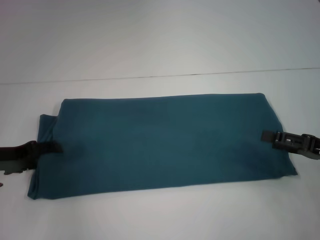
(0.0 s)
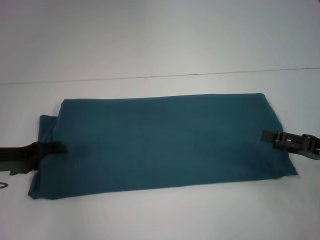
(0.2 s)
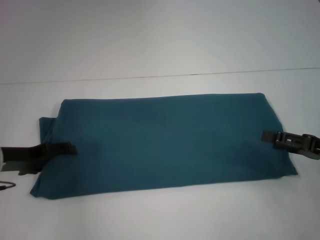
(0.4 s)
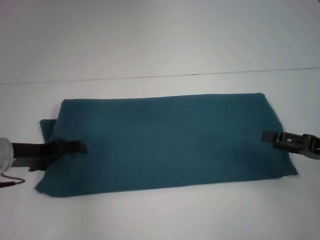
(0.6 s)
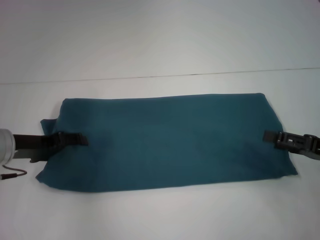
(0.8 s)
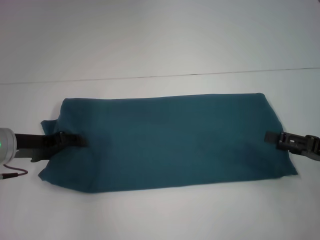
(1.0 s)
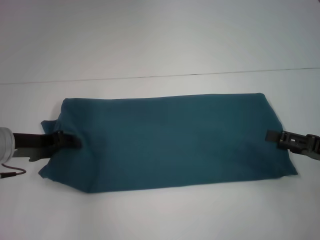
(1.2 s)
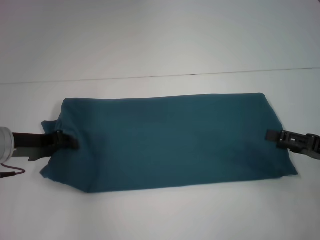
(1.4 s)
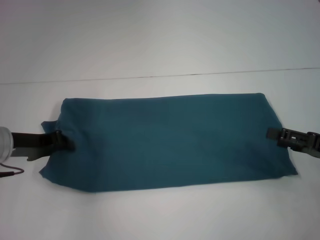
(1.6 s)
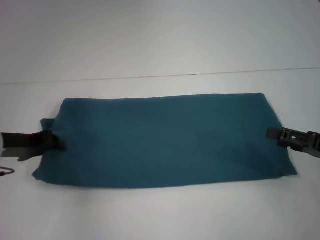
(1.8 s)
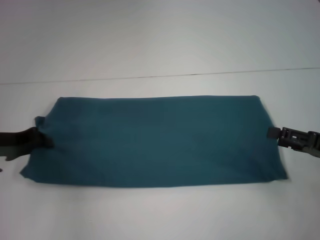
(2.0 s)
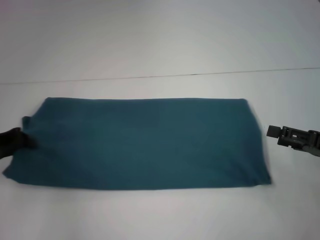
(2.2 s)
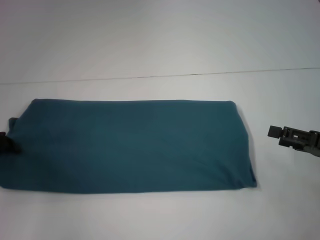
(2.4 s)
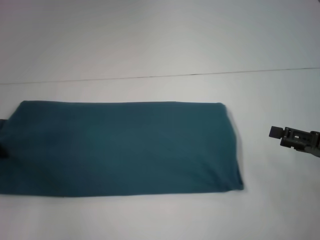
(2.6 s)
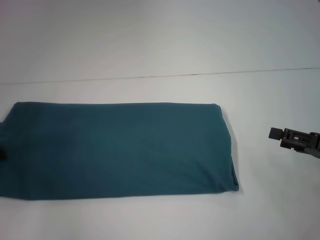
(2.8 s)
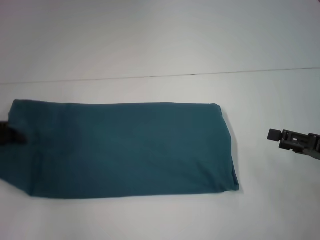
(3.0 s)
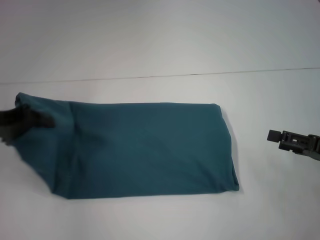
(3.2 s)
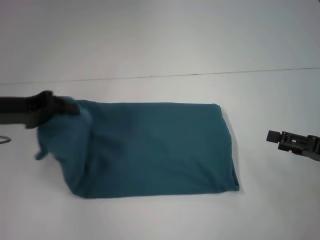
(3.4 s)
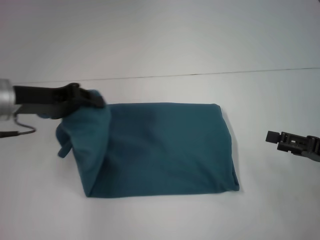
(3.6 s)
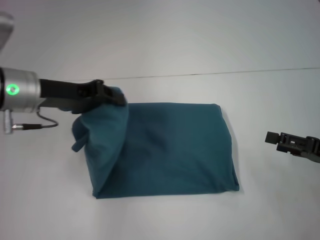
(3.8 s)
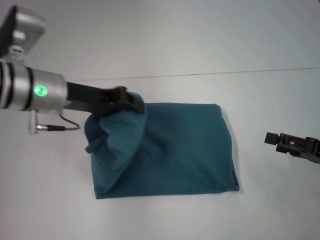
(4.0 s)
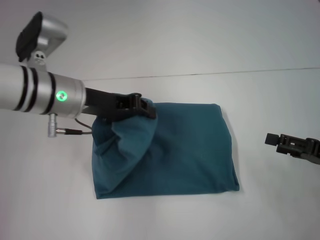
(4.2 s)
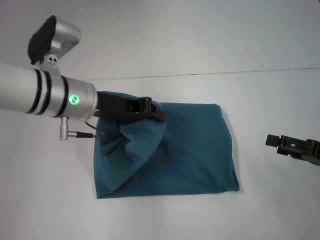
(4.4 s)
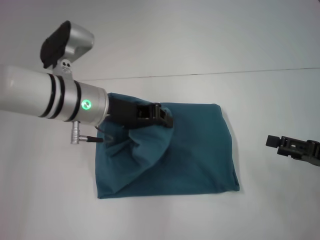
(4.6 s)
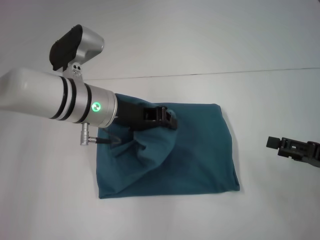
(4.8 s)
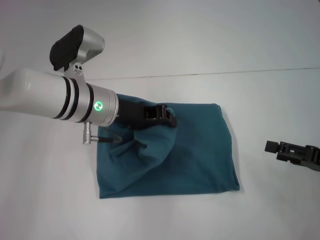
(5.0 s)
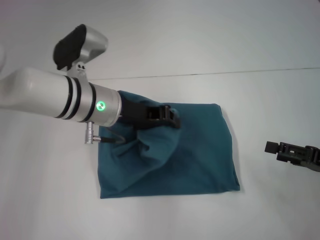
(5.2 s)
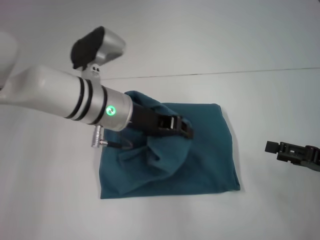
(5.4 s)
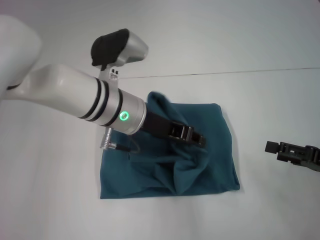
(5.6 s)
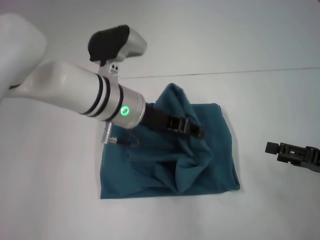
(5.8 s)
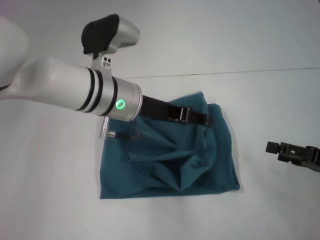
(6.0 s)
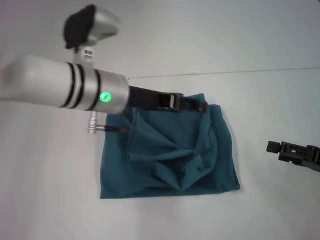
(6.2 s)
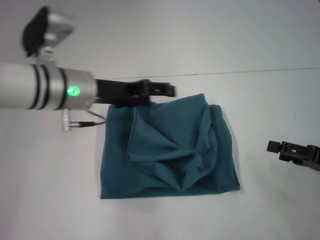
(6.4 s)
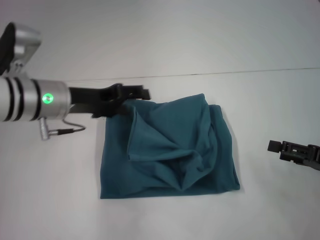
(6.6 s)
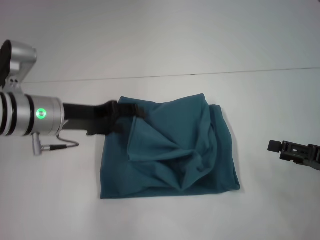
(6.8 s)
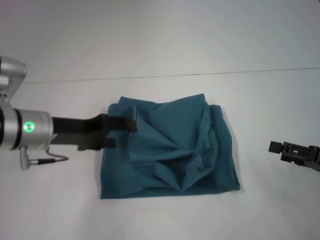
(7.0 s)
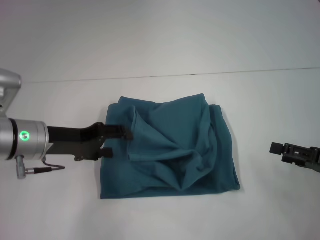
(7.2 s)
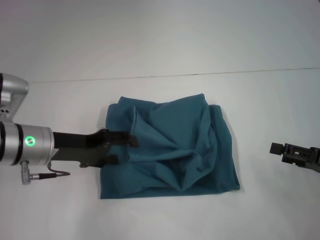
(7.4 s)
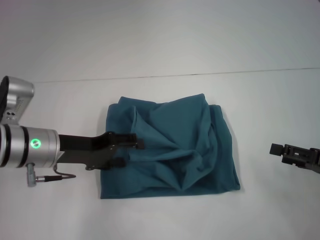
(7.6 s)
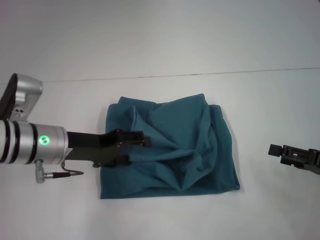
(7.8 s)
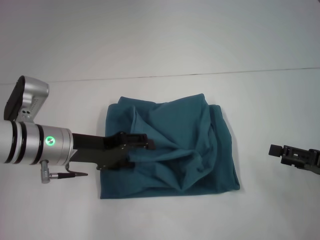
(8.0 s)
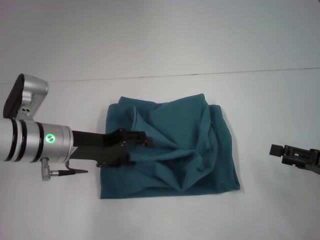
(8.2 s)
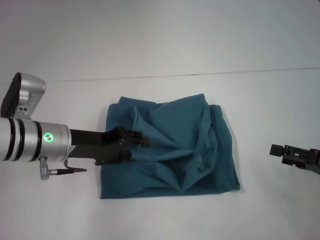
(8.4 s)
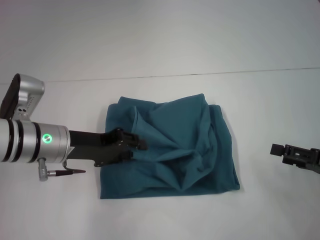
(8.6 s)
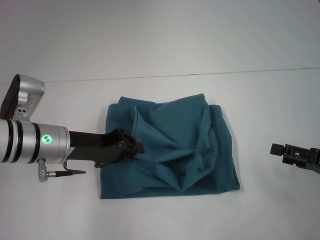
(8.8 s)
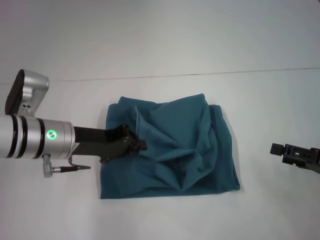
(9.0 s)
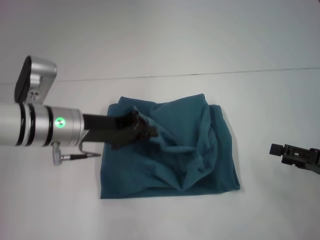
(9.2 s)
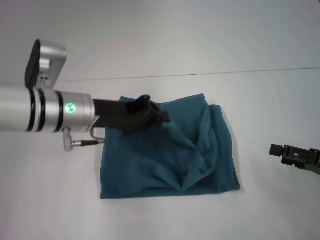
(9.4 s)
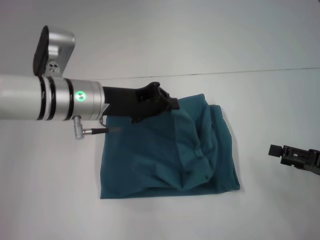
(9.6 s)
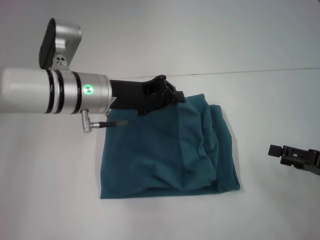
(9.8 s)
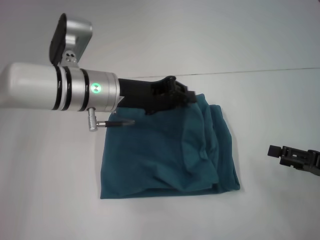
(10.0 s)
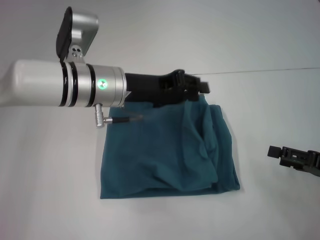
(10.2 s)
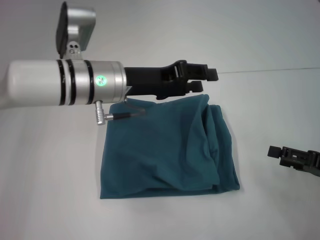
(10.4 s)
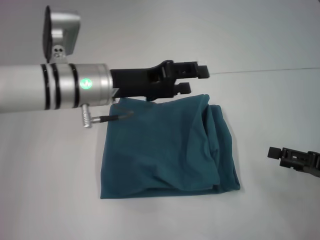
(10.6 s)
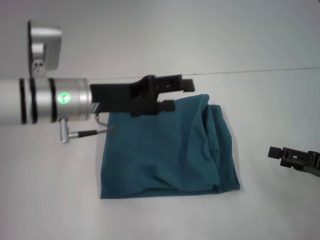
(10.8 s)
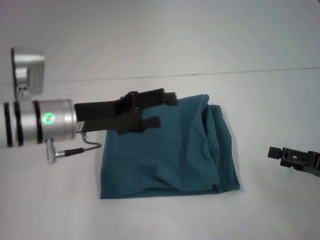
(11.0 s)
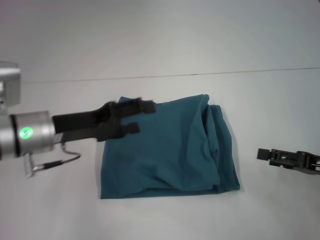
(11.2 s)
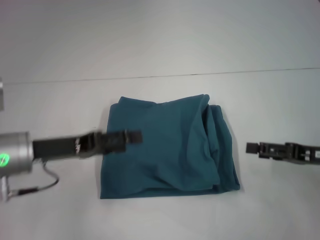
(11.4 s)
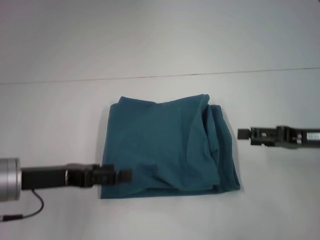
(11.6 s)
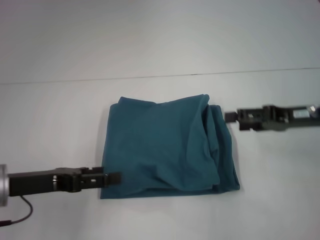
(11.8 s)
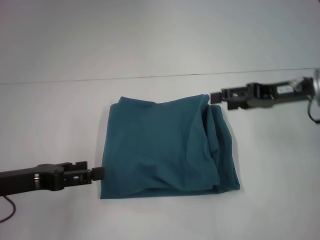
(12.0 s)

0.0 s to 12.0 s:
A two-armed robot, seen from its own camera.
Step, 0.0 to 6.2 s: Fold the clothes to the left.
0.0 to 1.6 s: The left gripper closes.
1.6 to 3.0 s: The left gripper travels to the left by some 5 cm.
3.0 to 4.4 s: The left gripper is displaced to the right by some 20 cm.
4.4 to 6.0 s: The left gripper heads to the right, covering roughly 5 cm, and opens.
6.0 to 7.6 s: The left gripper heads to the left and downward, covering approximately 15 cm, and opens.
7.6 to 9.0 s: The left gripper closes up.
9.0 to 10.4 s: The left gripper moves to the right and upward, roughly 10 cm.
10.4 to 12.0 s: The left gripper heads to the left and backward, covering roughly 20 cm, and opens. The right gripper goes approximately 20 cm forward, upward and to the left.

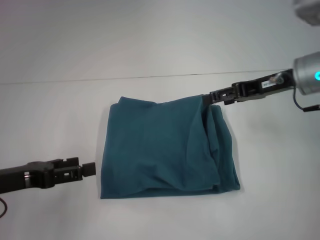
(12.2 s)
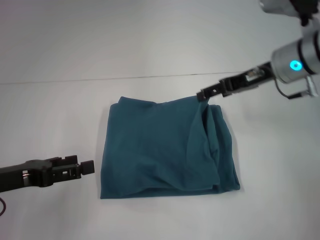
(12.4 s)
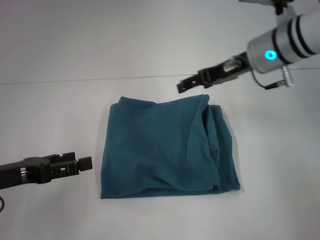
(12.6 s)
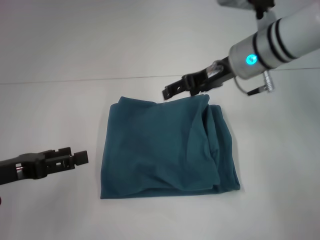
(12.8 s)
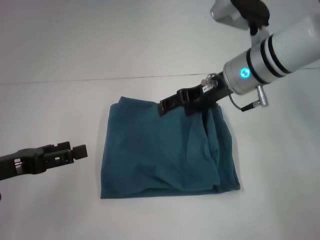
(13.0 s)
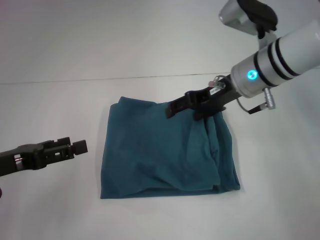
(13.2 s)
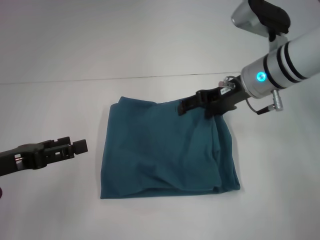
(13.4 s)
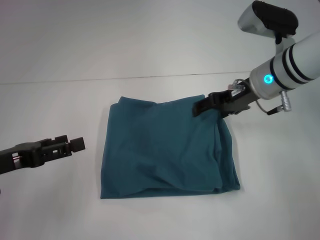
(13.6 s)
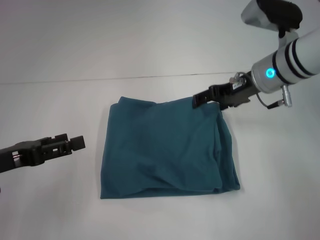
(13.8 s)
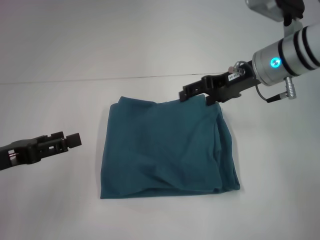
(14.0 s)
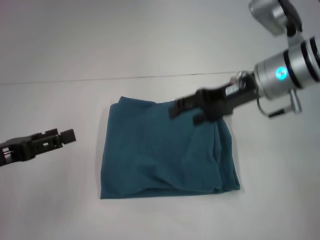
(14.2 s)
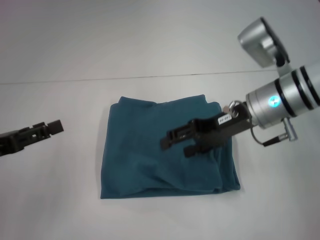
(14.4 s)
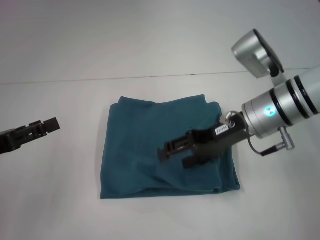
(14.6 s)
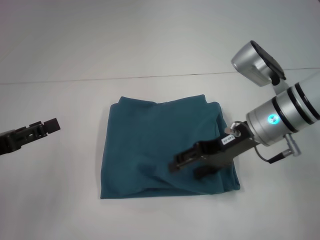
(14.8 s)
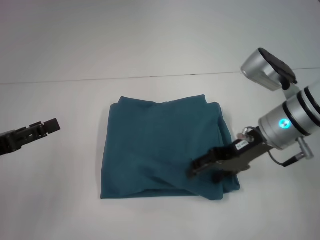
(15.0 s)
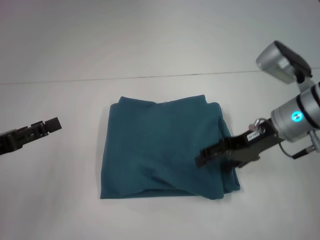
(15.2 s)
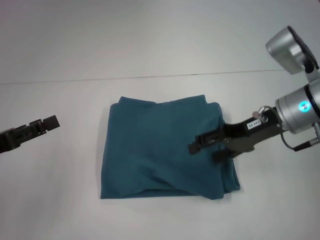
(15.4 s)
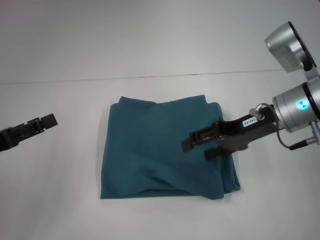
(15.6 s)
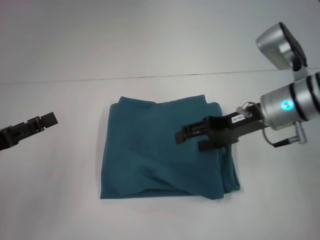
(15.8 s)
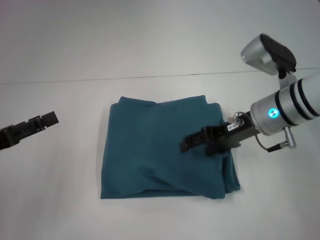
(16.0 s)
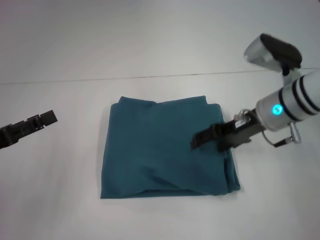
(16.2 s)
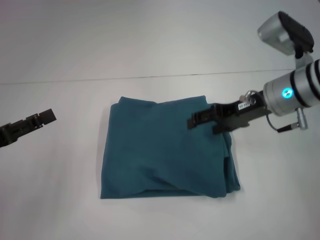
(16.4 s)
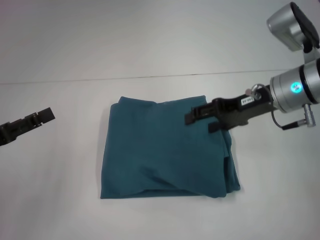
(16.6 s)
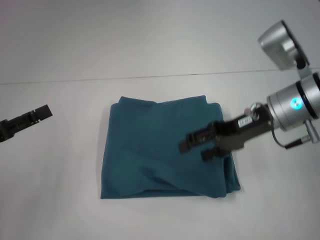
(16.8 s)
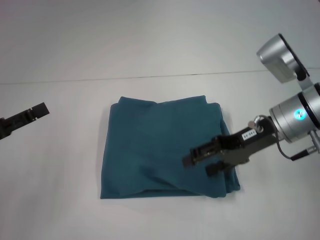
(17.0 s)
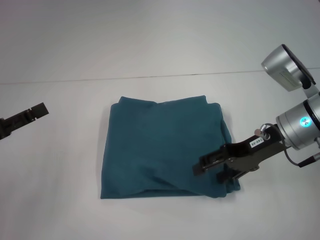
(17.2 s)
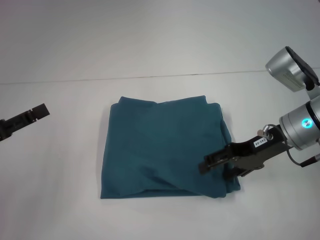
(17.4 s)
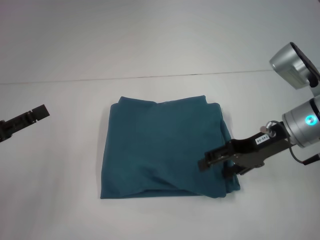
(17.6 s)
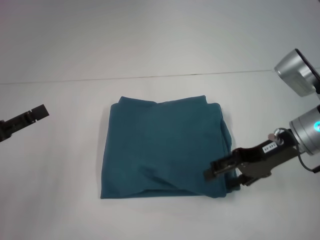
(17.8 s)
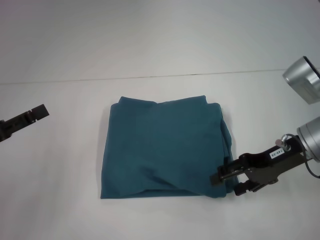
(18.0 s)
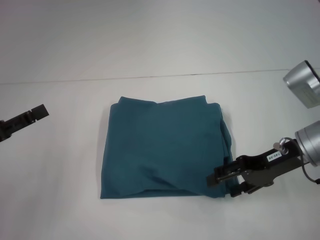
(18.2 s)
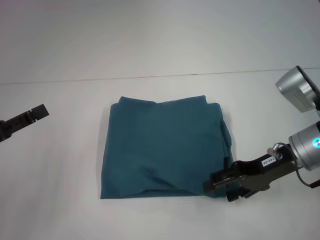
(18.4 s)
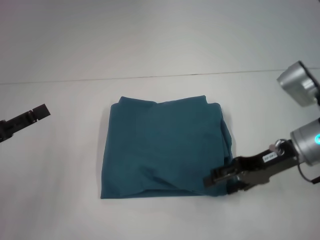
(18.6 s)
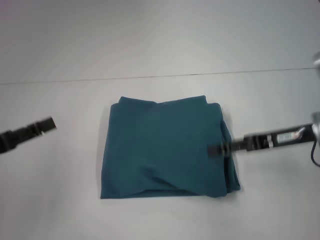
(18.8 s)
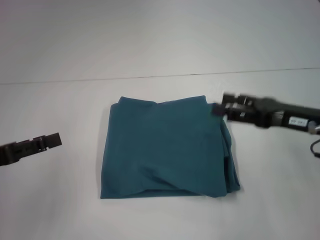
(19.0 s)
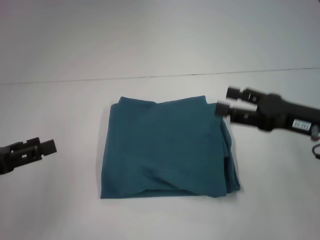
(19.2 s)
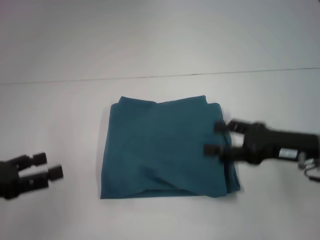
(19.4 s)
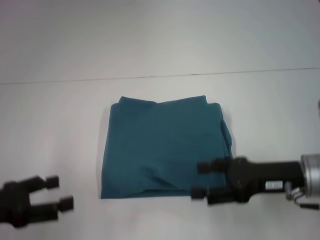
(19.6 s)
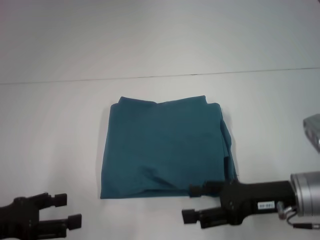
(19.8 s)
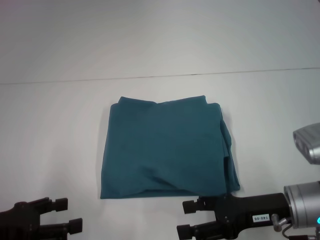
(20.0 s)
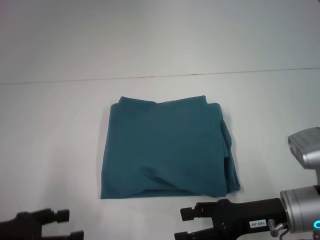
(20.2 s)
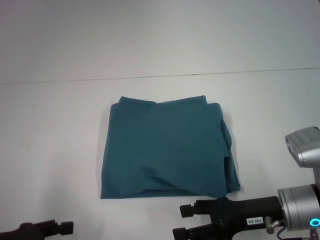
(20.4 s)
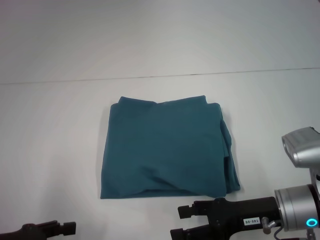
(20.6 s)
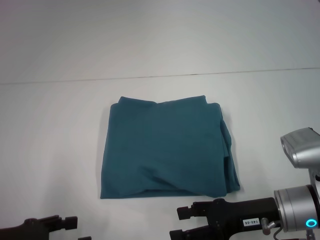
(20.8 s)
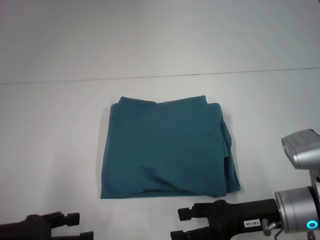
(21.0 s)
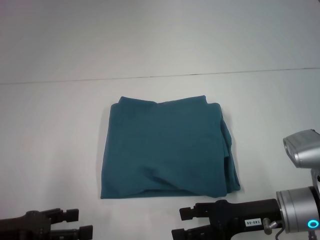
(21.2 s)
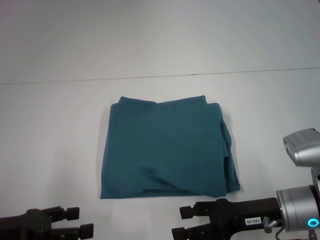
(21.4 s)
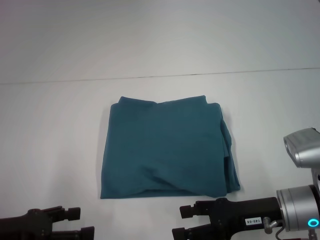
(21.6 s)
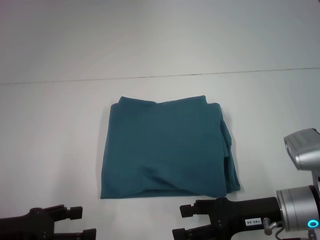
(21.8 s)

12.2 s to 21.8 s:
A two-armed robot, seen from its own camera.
12.2 to 13.8 s: The right gripper travels to the left by approximately 5 cm.
13.8 to 15.4 s: The right gripper moves backward, about 5 cm.
15.4 to 18.6 s: The grippers move only a little.
18.6 to 20.2 s: The left gripper shifts roughly 5 cm backward, while the right gripper goes roughly 10 cm backward and downward.
20.2 to 21.8 s: The grippers move only a little.
